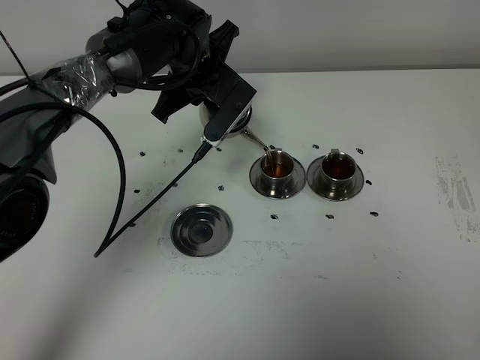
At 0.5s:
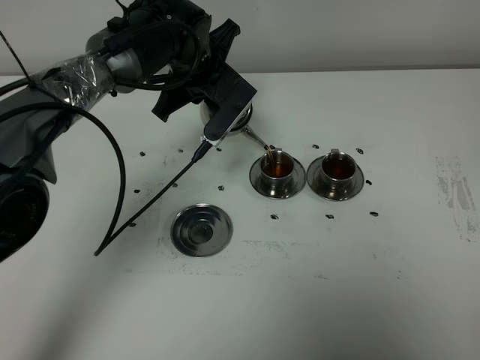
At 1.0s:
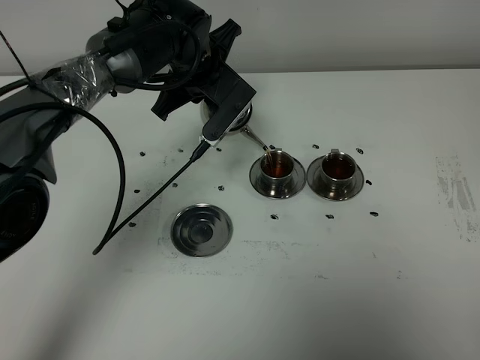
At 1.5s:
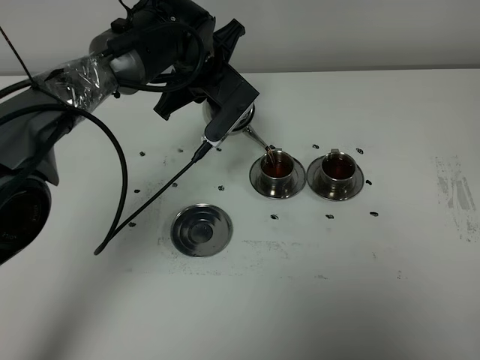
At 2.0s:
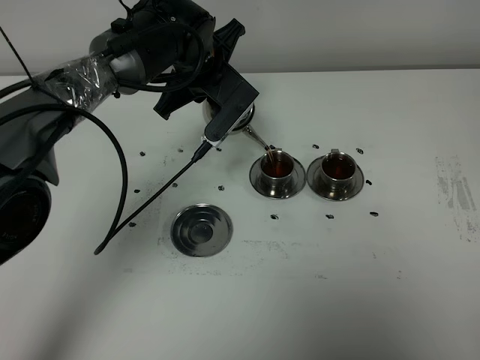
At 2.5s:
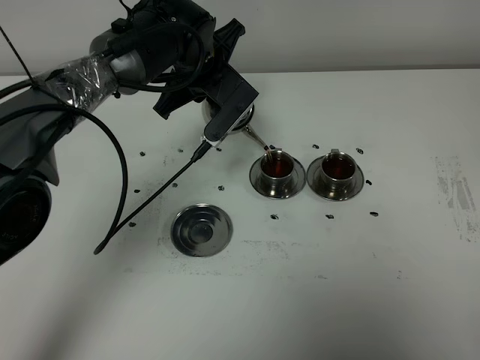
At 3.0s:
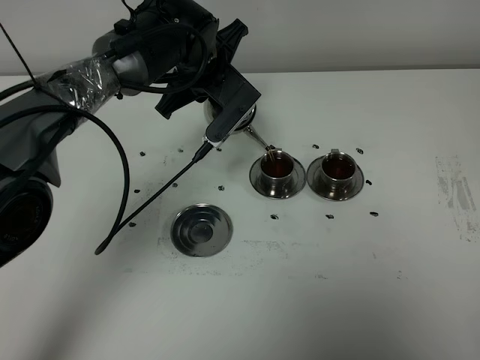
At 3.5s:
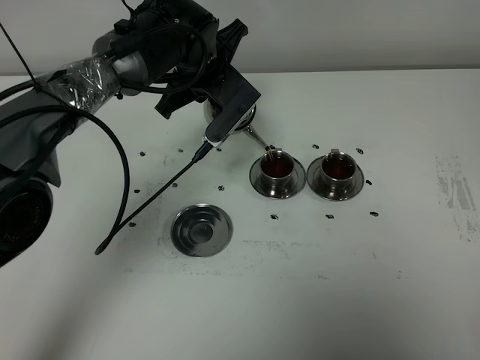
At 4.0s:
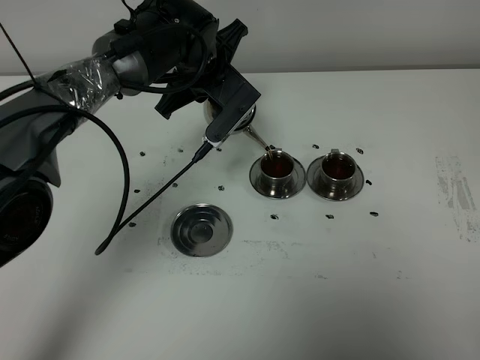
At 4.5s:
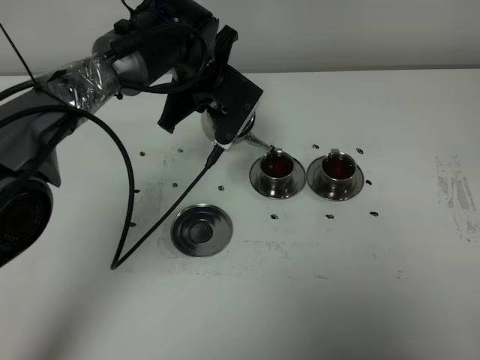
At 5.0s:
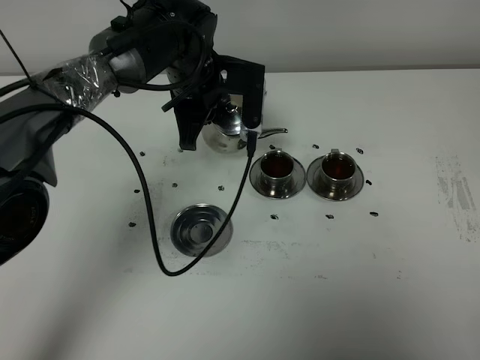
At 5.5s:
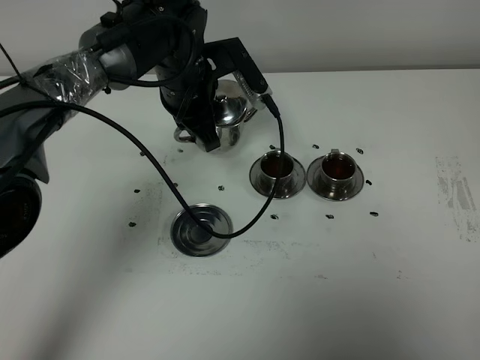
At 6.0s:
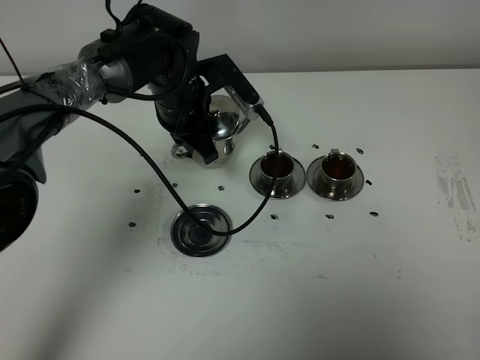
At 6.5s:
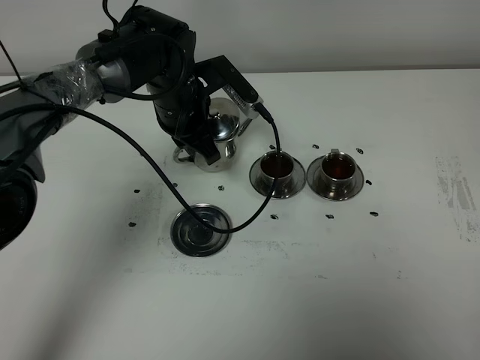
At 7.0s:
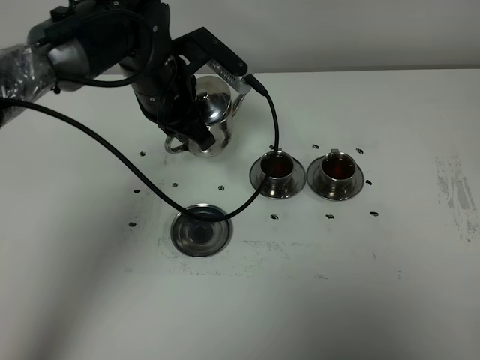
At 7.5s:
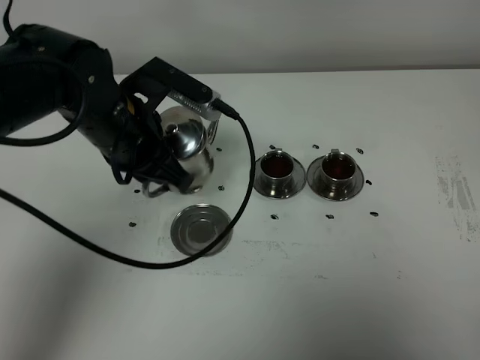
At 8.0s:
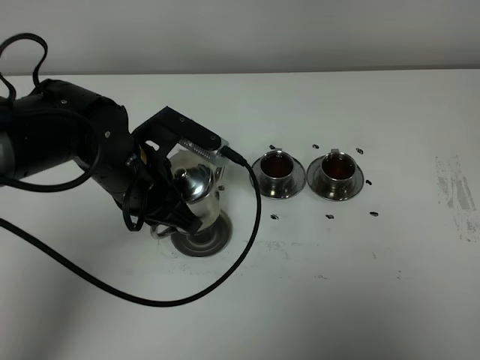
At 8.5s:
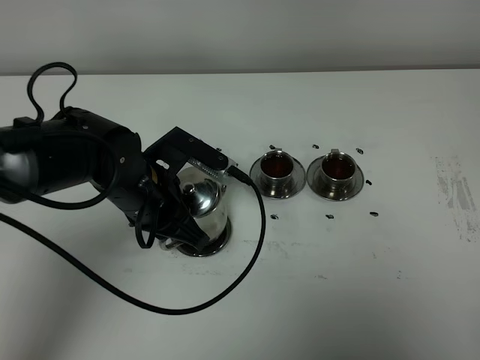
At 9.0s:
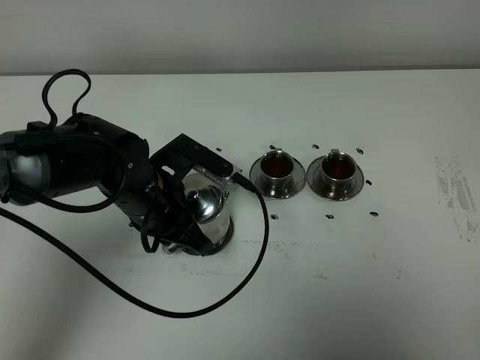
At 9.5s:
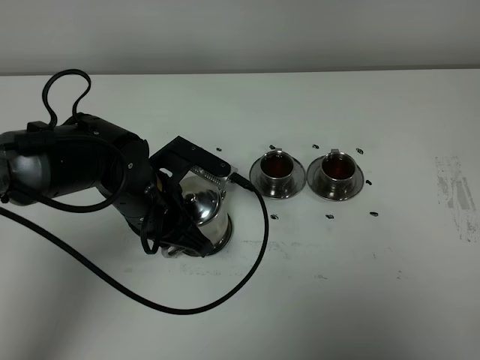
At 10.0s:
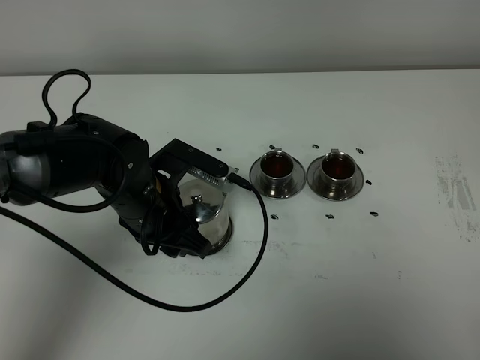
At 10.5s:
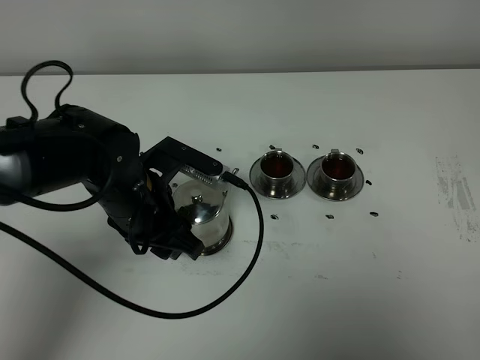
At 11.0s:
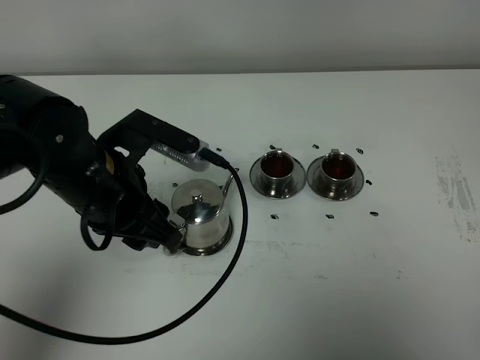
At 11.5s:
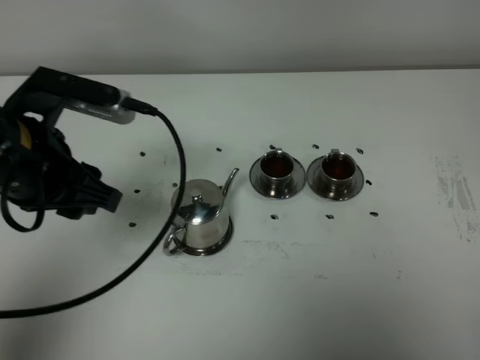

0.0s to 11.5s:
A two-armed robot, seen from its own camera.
Task of the whole recording: grasp the stainless steel teapot and pour the tea into the two stainless steel teacups one by one, put the stainless steel teapot back in its original place.
Step, 0.0s to 4.5s: Pour tea into the teacup with the left gripper.
0.0s to 4.0s: Neither gripper changes place.
4.0s to 6.0s: The left gripper shifts by roughly 5 cm.
6.0s to 7.5s: The left gripper heads backward and upward, covering about 15 cm.
7.5s to 9.5s: The left gripper moves downward, about 10 cm.
9.5s to 11.5s: The left gripper goes roughly 15 cm upward and to the left, and opens its fingers.

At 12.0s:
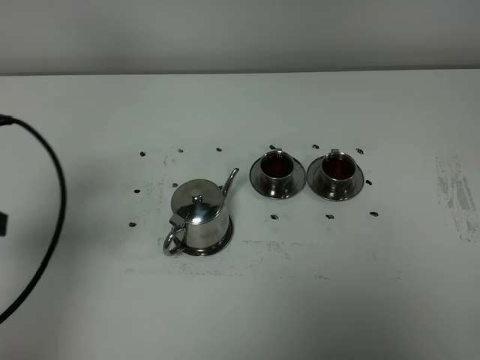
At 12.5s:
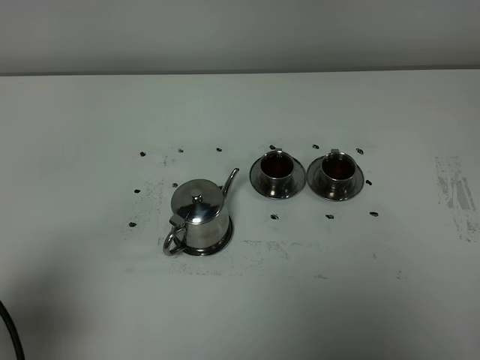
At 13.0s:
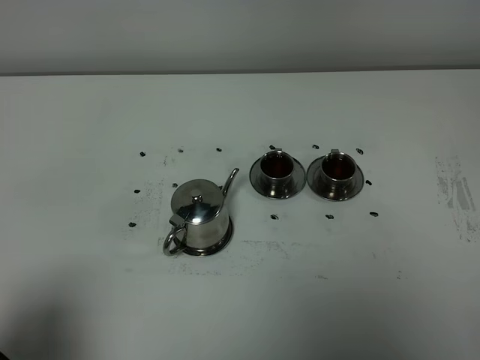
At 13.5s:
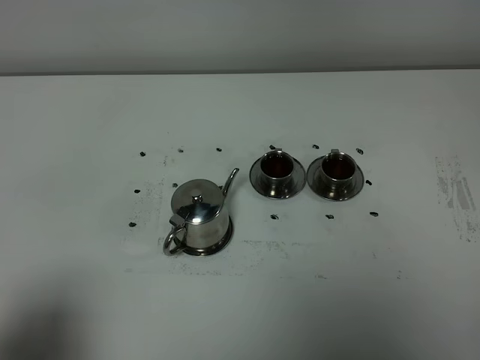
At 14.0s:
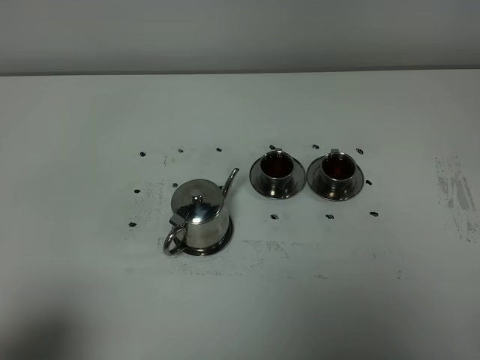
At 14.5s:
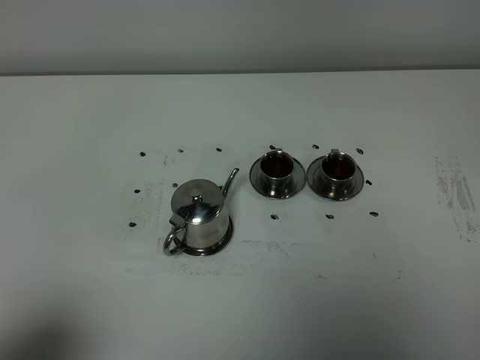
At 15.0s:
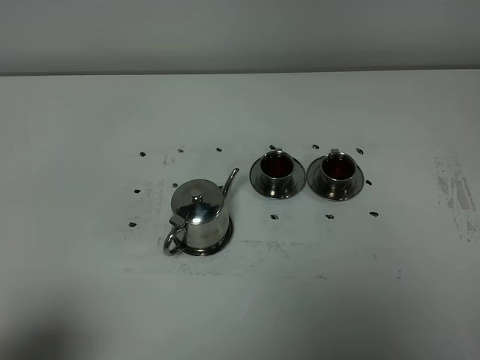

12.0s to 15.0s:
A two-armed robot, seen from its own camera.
Task of the whole recording: grasp the stainless steel teapot and pour the tea into the two stainless steel teacups one by one, put the stainless steel teapot back in its original place.
12.0s to 13.5s: The left gripper travels backward by about 15 cm.
